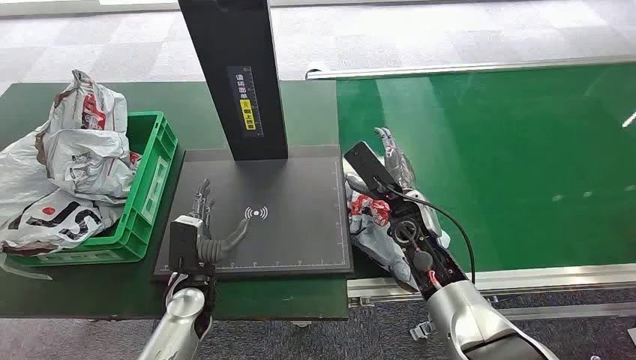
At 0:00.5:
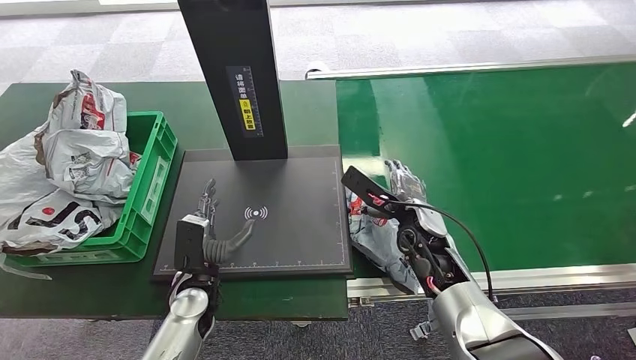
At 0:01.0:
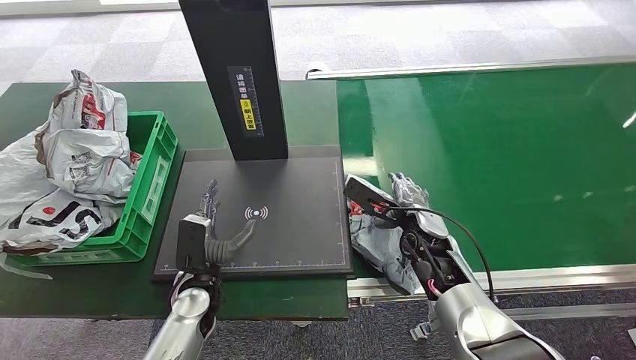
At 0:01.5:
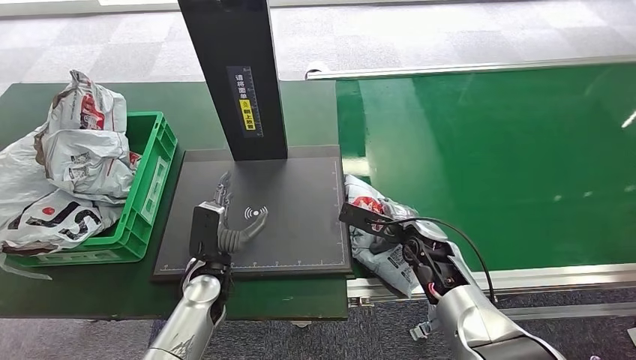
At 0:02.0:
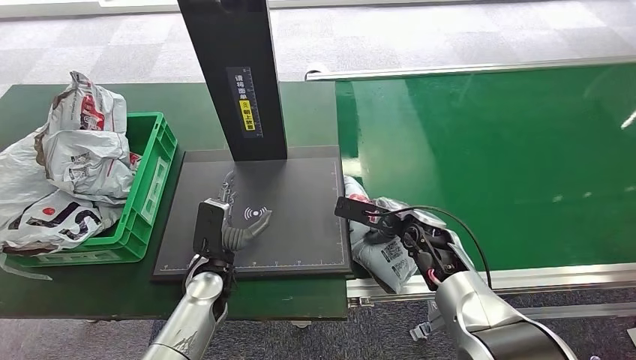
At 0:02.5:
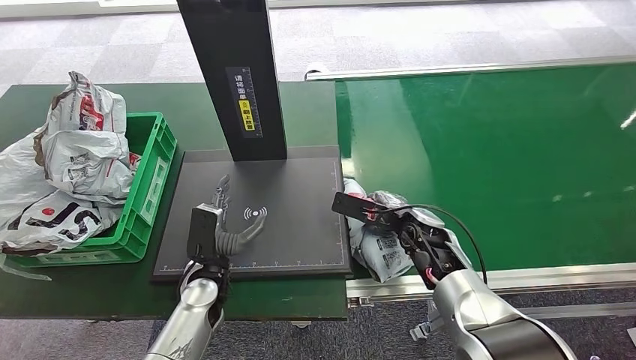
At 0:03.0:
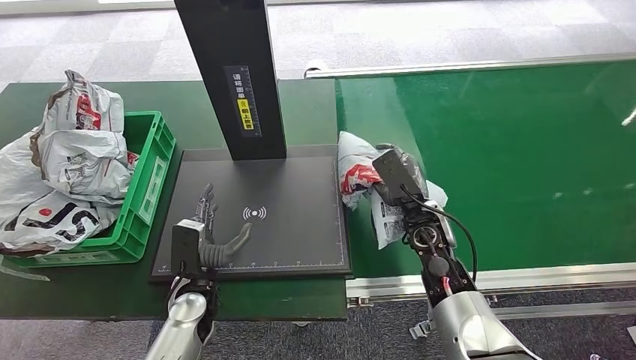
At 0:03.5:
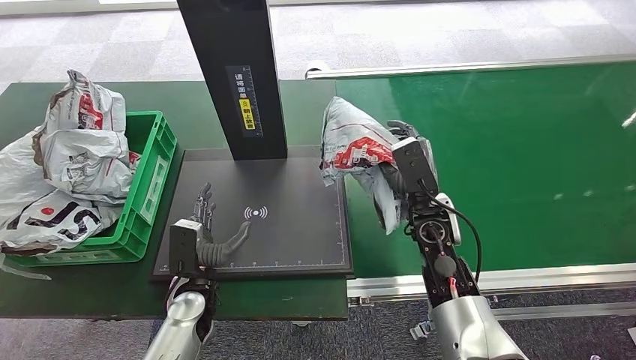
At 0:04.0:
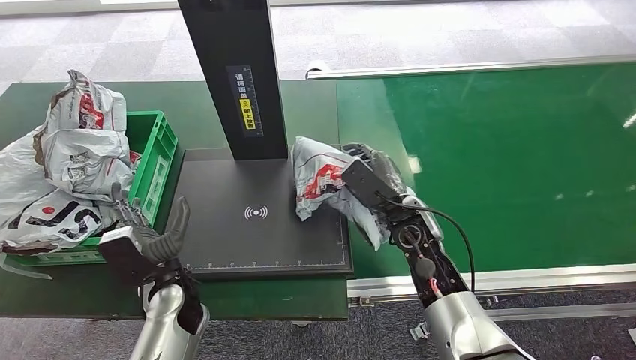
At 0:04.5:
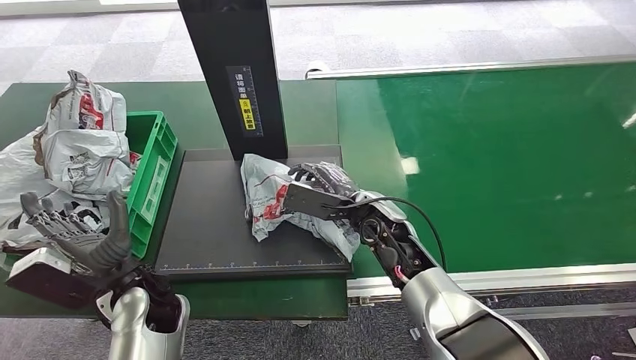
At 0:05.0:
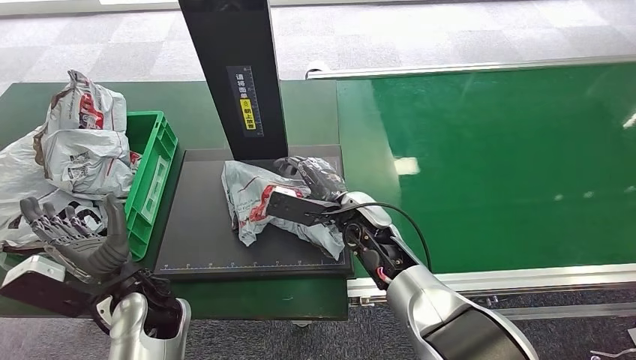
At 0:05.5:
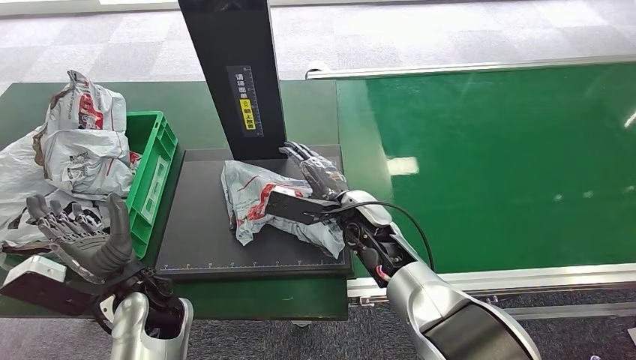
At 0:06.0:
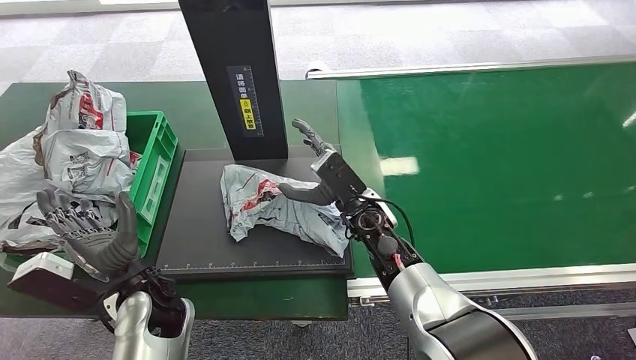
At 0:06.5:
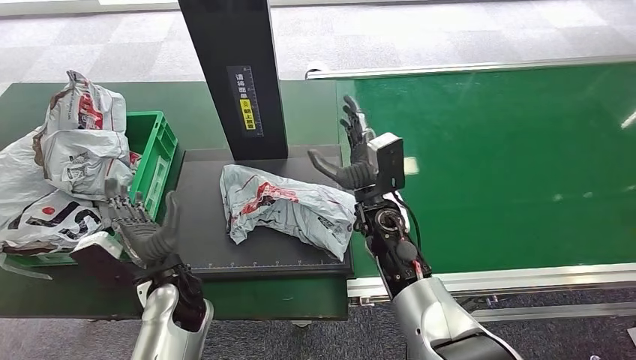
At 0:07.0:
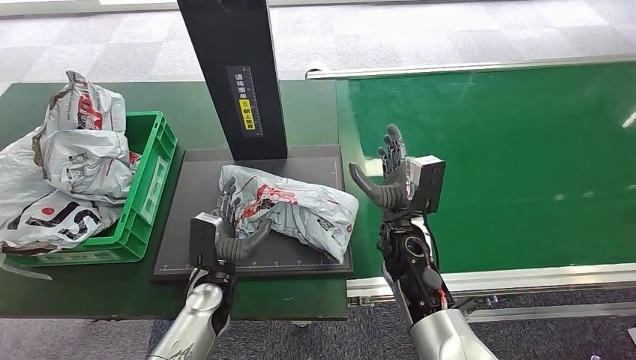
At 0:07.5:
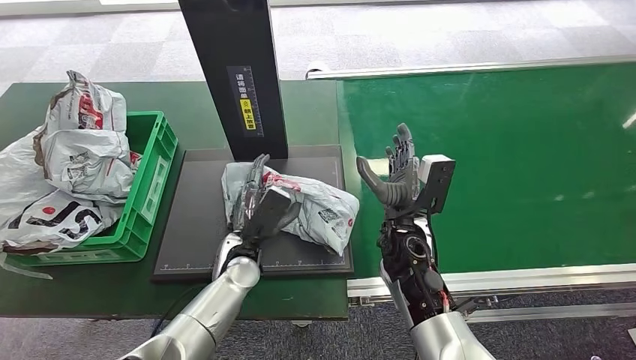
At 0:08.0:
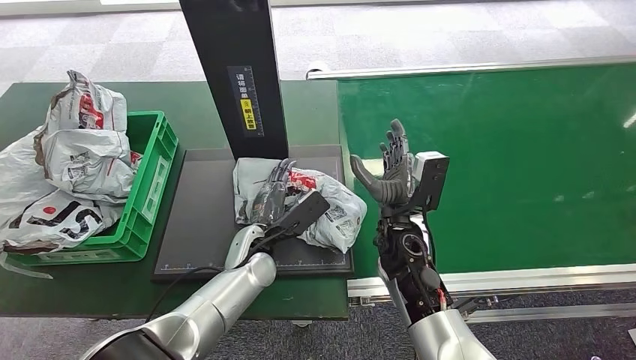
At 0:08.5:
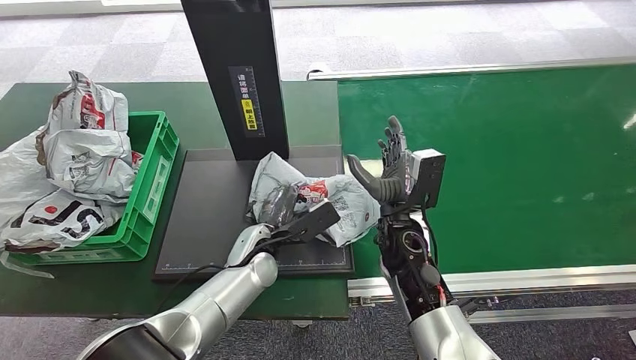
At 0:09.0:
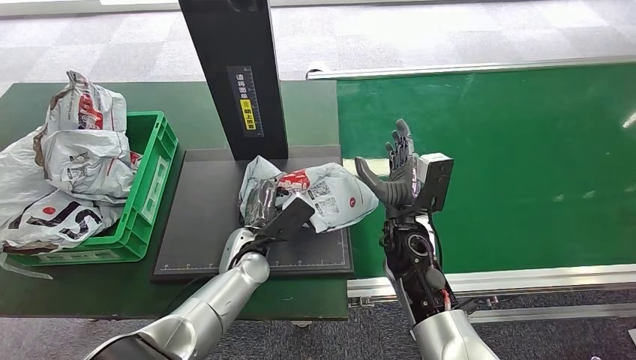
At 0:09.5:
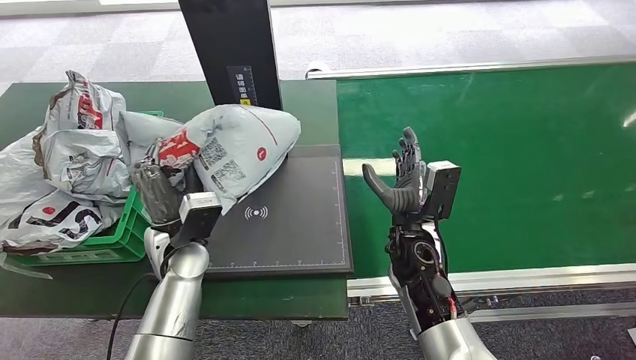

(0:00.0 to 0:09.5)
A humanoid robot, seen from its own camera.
Step, 0:00.0 - 0:03.5: Pick up the package from the conveyor belt.
Step, 0:04.0 - 0:06.5: Place the package onto the inbound machine.
0:04.0 - 0:05.5: The right hand moves to the left, some 10 cm, while the left hand is displaced upward by roughly 5 cm.
0:05.5 - 0:07.5: The right hand travels to the right by some 5 cm; the left hand shifts approximately 15 cm to the right, forward and downward.
0:07.5 - 0:09.5: The left hand is displaced upward and to the left by approximately 10 cm.

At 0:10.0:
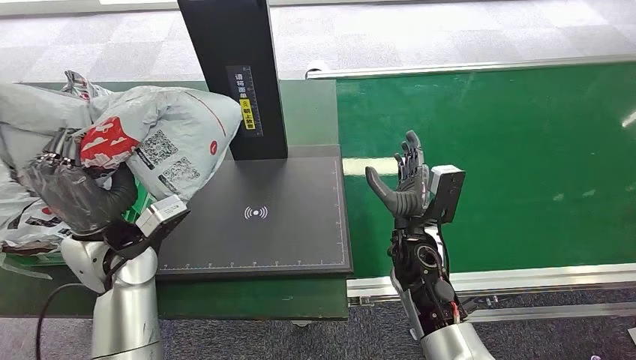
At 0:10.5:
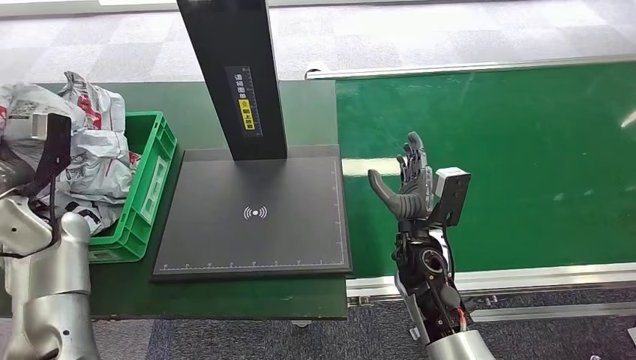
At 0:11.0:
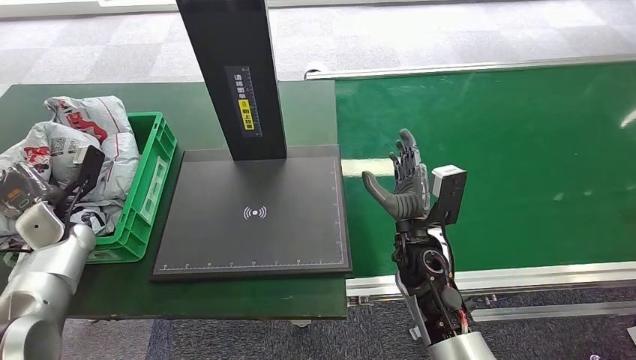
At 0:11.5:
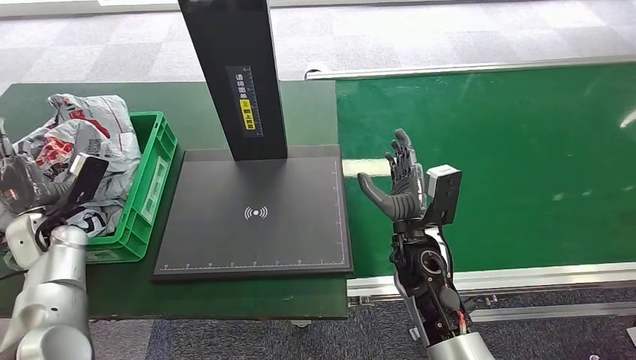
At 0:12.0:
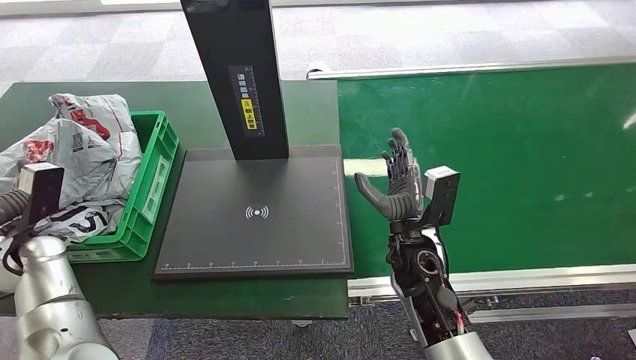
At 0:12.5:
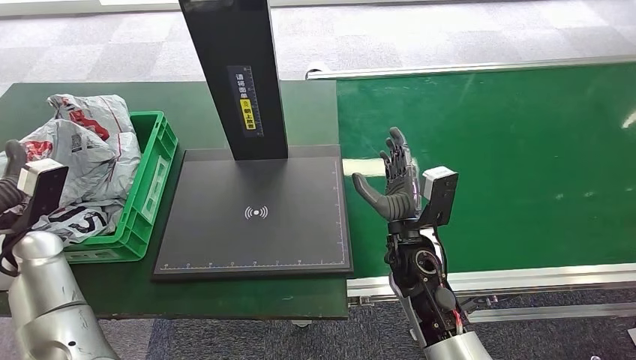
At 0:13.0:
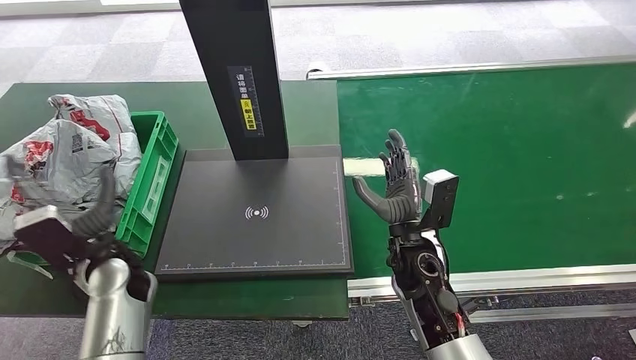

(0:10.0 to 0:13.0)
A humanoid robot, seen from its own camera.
Step, 0:10.0 - 0:13.0: Place the package into the parcel locker.
0:11.5 - 0:13.0: The left hand heads to the right, covering some 15 cm.

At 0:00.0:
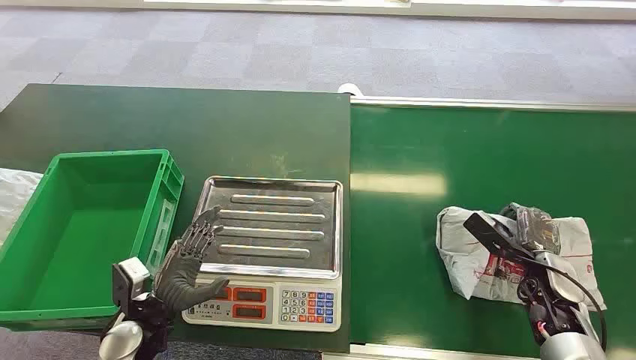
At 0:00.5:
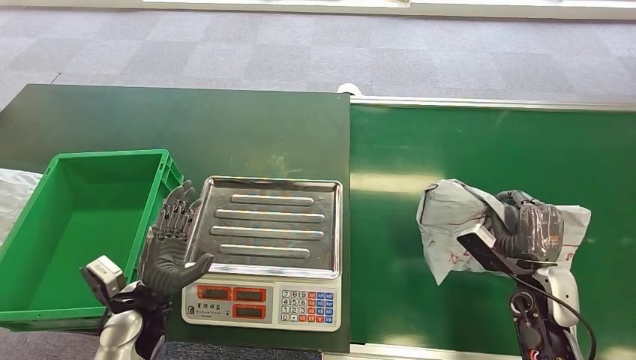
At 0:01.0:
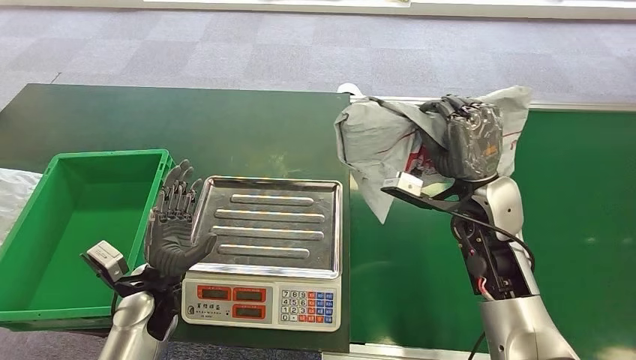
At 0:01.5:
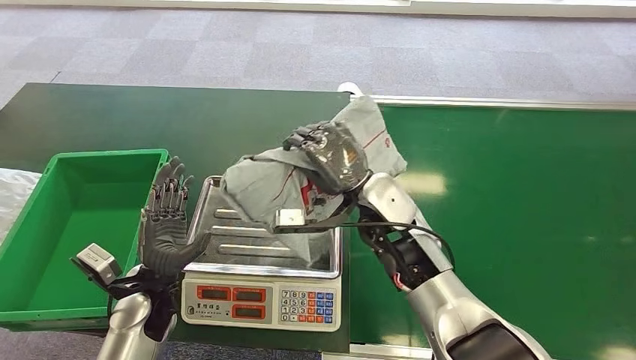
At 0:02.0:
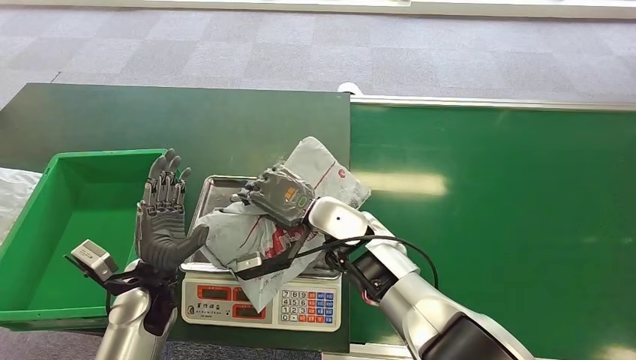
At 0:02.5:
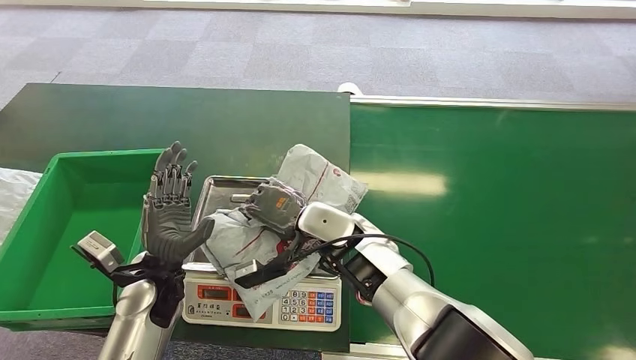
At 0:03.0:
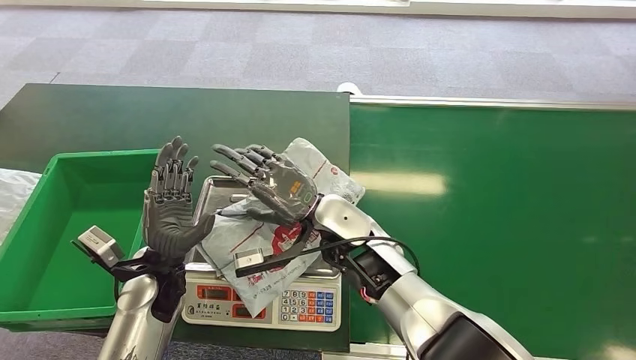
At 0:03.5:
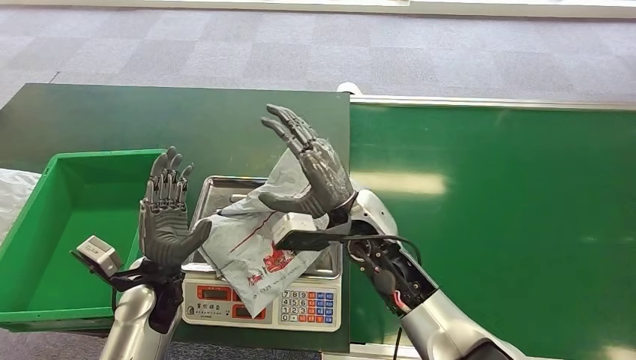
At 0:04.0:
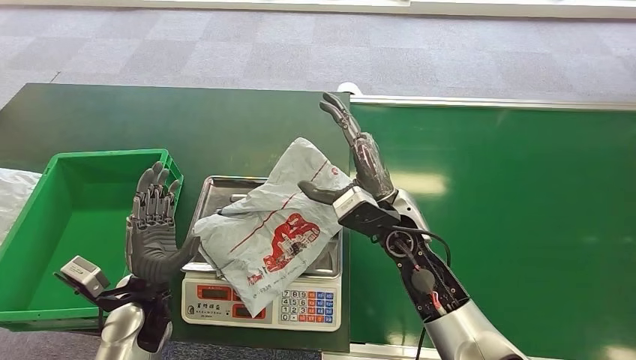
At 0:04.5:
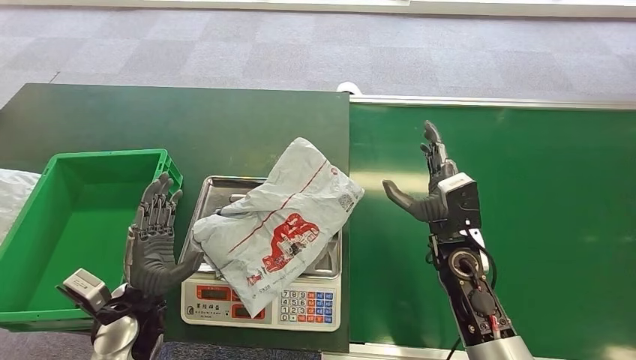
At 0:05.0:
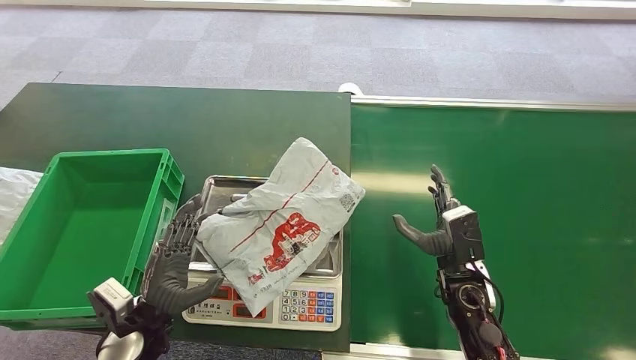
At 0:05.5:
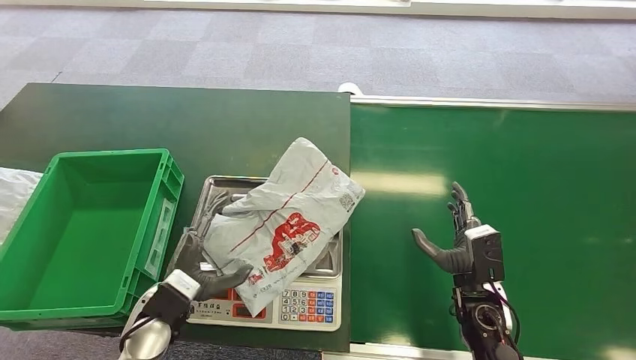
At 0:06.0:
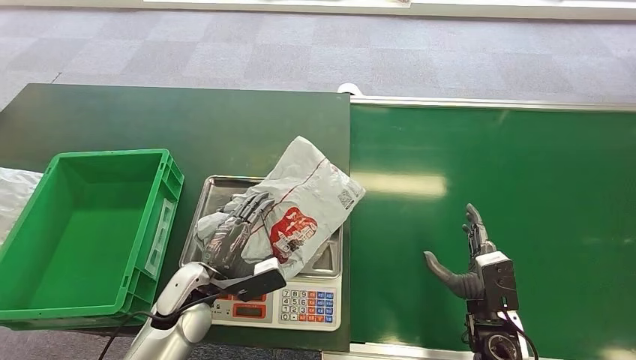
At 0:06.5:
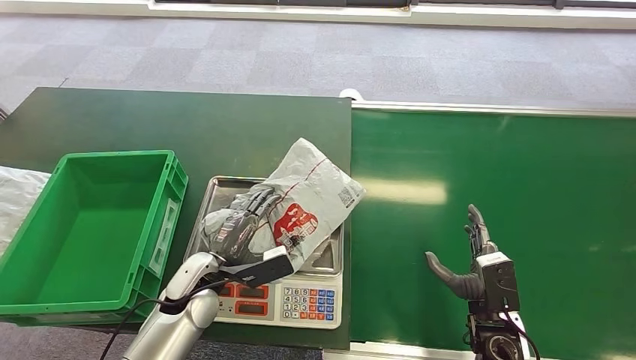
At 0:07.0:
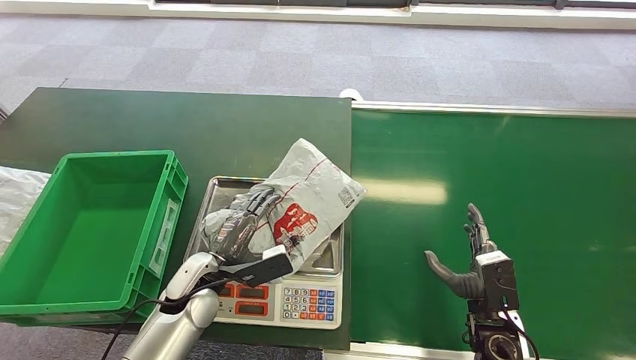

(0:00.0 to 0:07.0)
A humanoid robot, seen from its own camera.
Step, 0:00.0 - 0:00.5: Pick up the package from the conveyor belt.
Step, 0:01.5 - 0:02.5: Place the package onto the inbound machine.
0:03.5 - 0:05.0: The left hand moves backward, some 5 cm; the right hand shifts approximately 20 cm to the right and downward.
